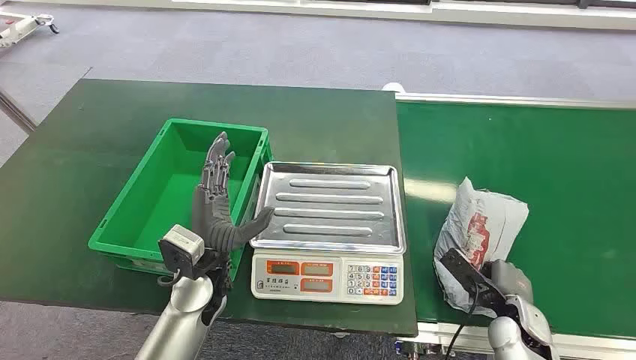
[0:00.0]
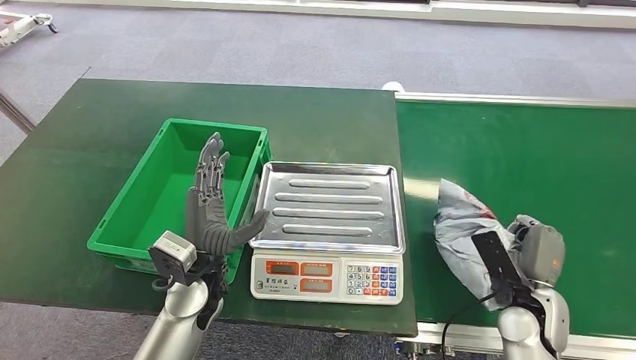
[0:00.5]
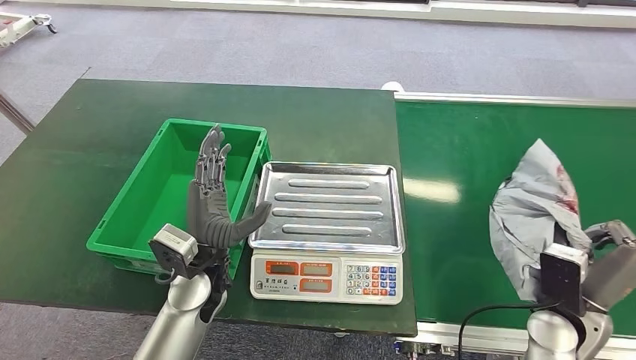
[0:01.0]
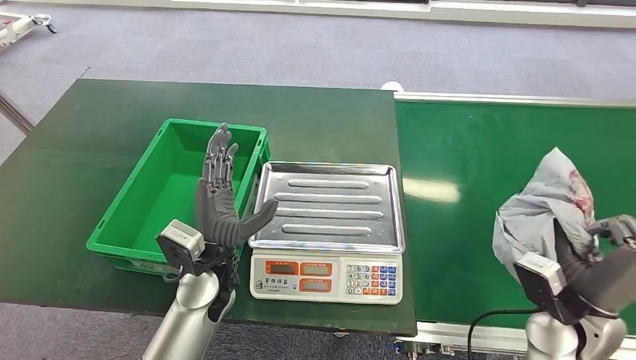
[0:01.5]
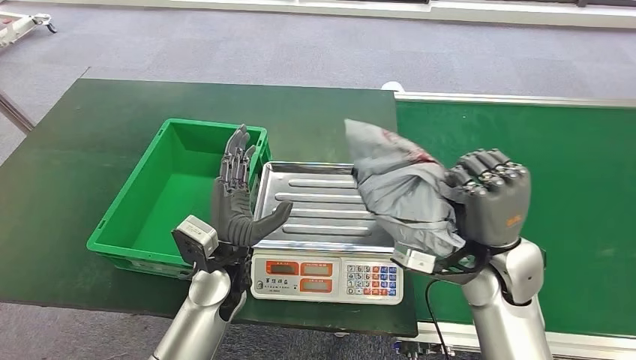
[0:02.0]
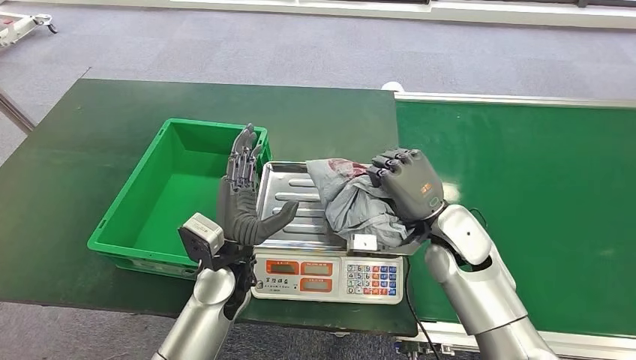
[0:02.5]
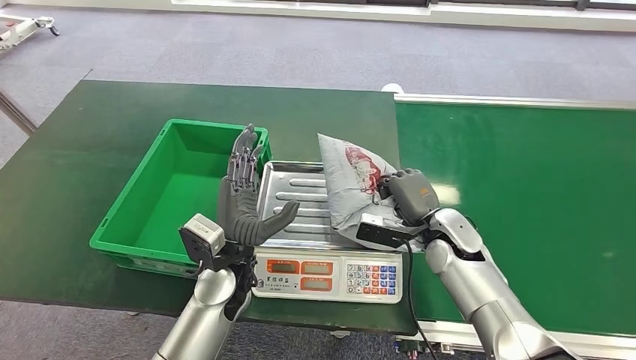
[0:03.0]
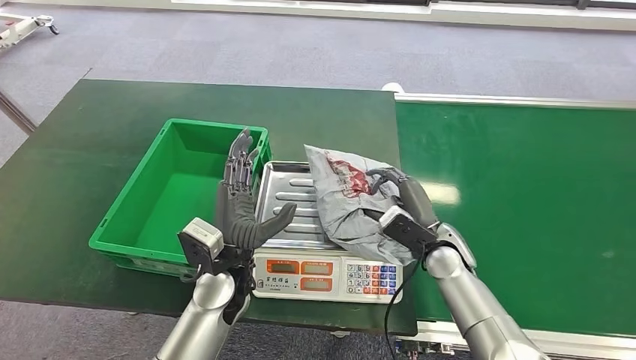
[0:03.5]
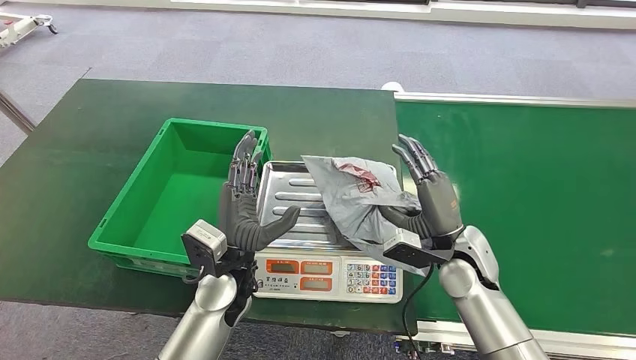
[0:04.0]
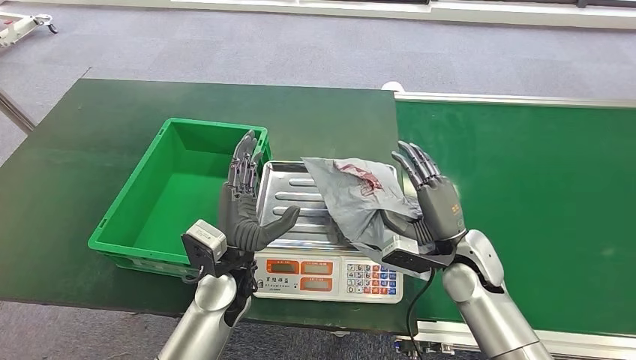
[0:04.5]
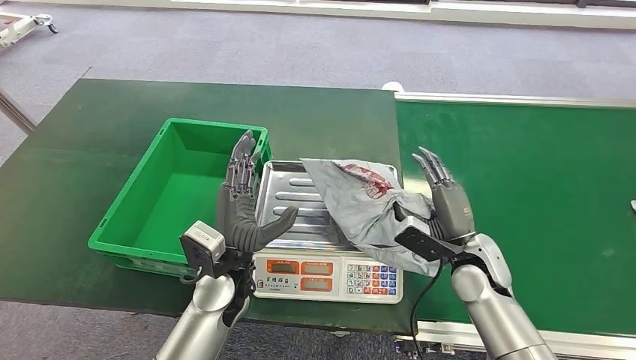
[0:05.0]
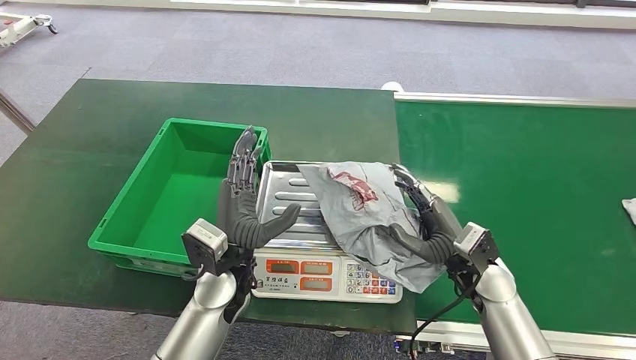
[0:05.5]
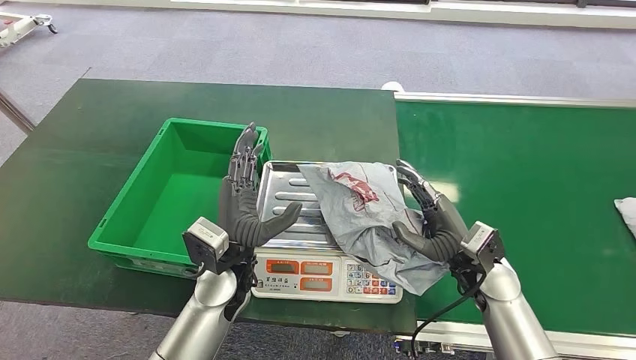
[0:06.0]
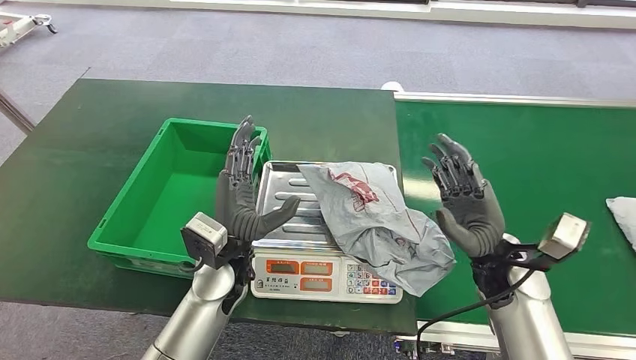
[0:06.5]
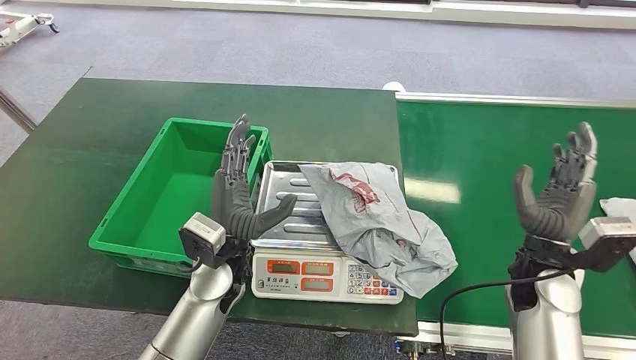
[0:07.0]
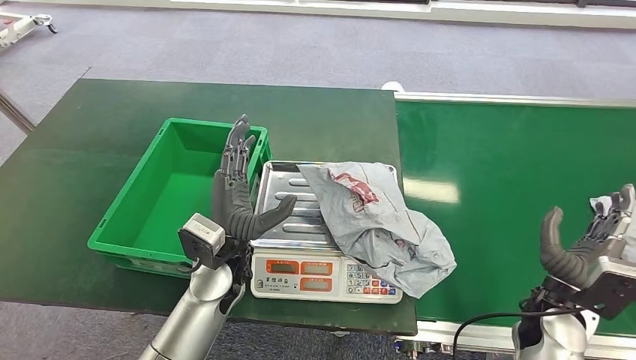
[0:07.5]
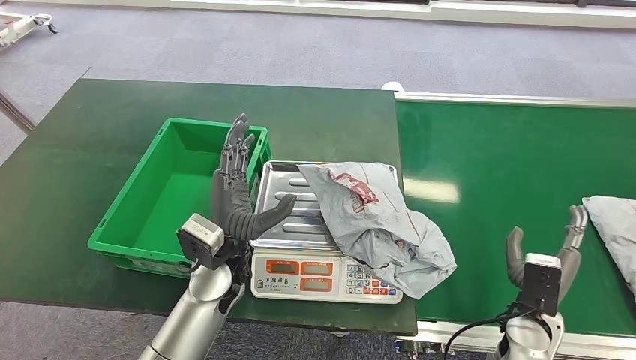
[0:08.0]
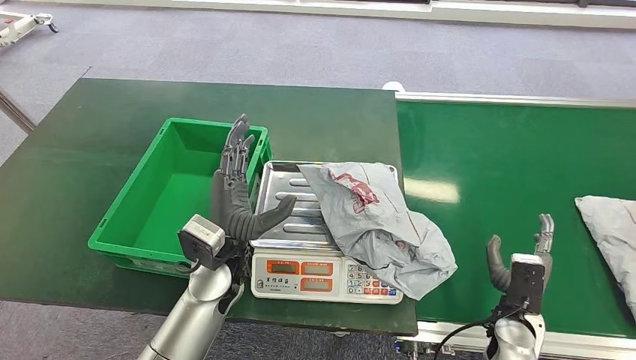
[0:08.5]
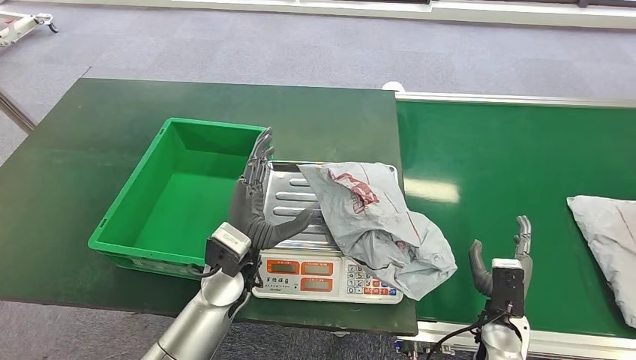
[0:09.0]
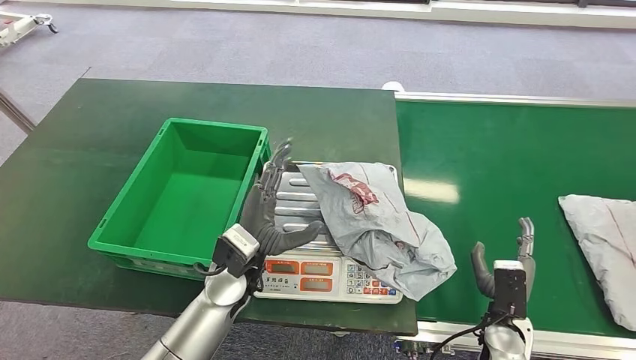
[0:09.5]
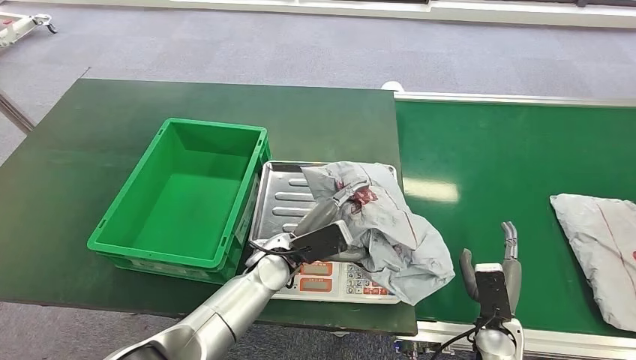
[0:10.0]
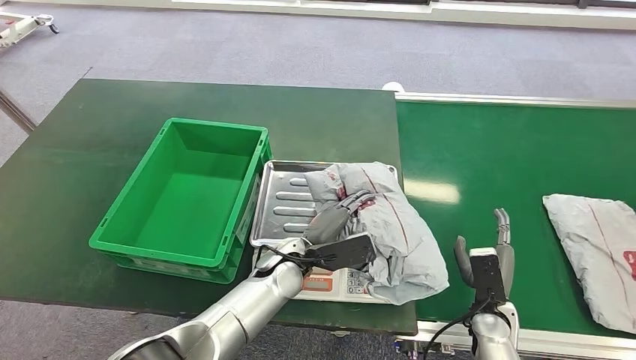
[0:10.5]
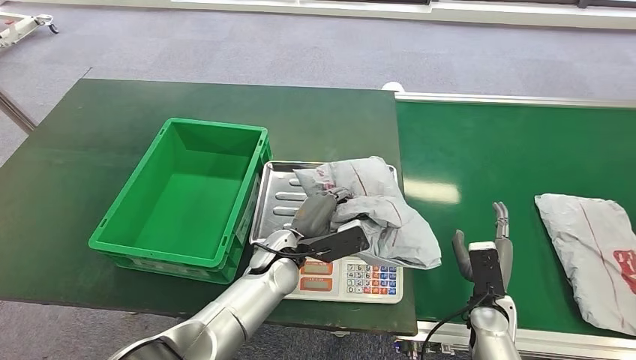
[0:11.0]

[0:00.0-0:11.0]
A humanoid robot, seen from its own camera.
Step, 0:00.0 to 0:01.5: Pick up the package from the conveyor belt.
Step, 0:02.0 to 0:06.5: Place the package onto the inbound machine.
0:03.5 to 0:05.5: The right hand shifts by approximately 5 cm.
0:05.5 to 0:07.5: The right hand goes approximately 10 cm to the right and backward.
0:07.5 to 0:09.0: The right hand shifts some 10 cm downward.
0:09.0 to 0:11.0: The left hand is displaced to the right by about 5 cm.

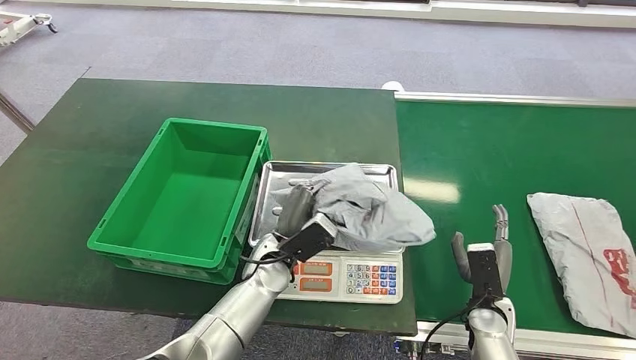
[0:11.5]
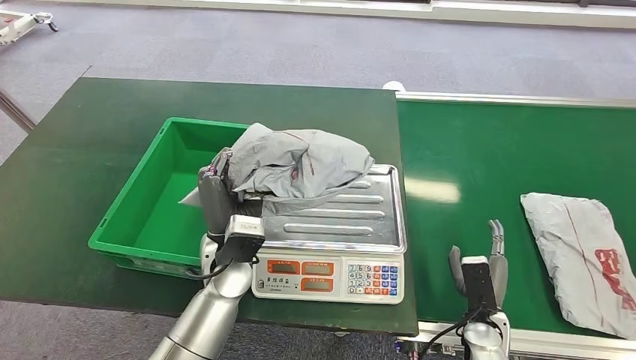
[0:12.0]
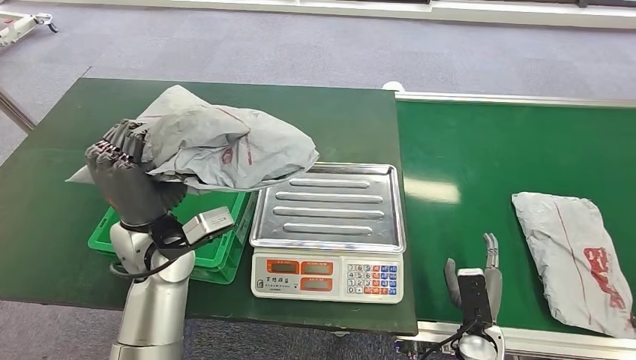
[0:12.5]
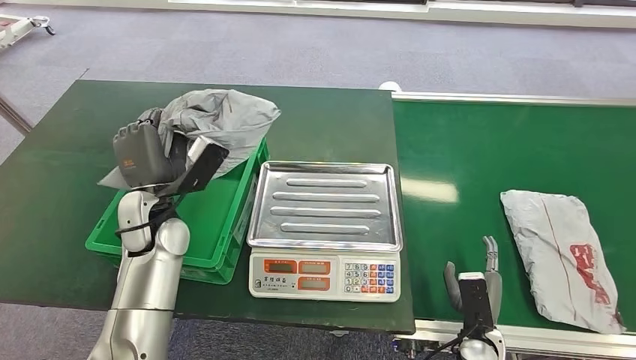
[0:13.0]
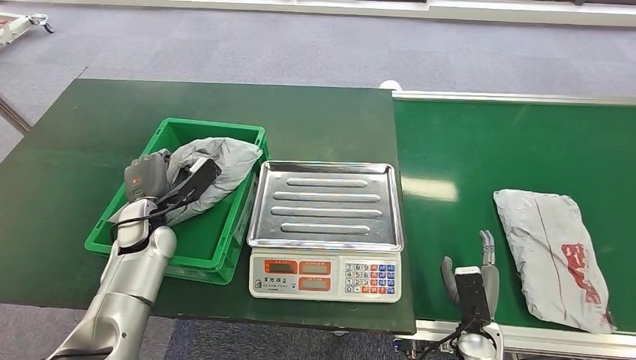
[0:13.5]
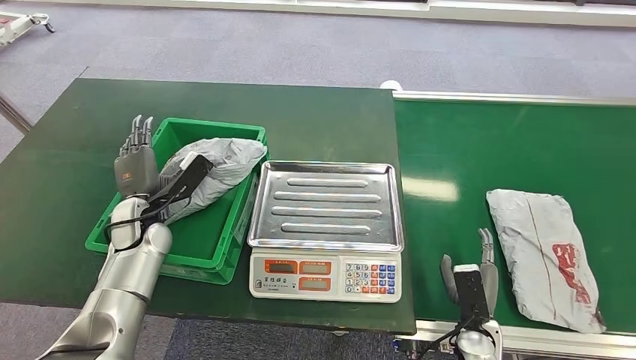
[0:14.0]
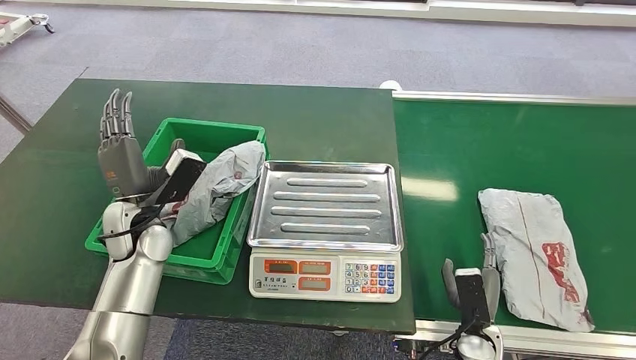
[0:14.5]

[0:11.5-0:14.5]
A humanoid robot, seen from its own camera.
Step, 0:12.5 to 0:14.5: Place the package into the parcel locker.
